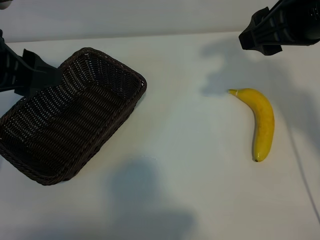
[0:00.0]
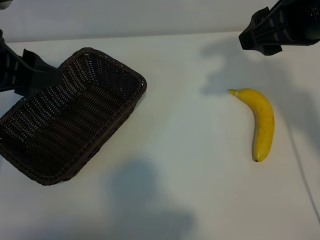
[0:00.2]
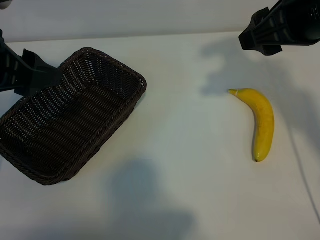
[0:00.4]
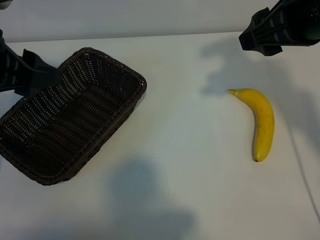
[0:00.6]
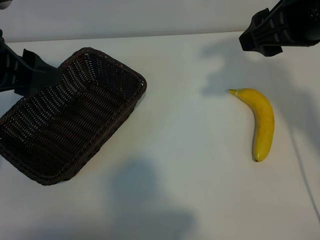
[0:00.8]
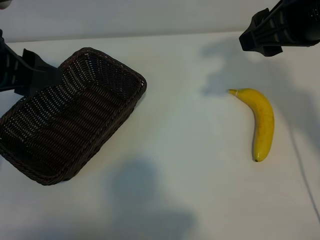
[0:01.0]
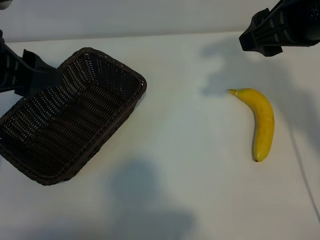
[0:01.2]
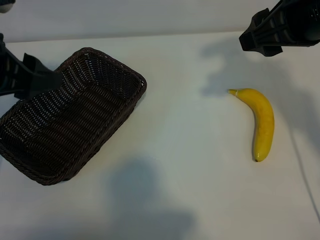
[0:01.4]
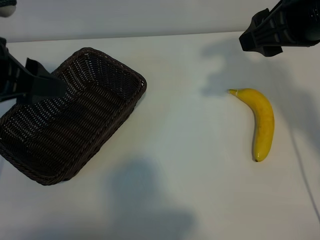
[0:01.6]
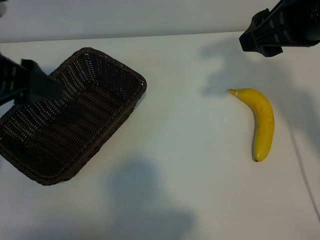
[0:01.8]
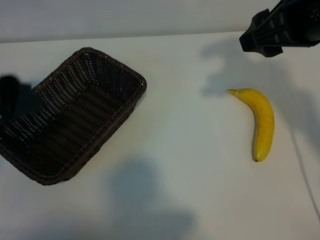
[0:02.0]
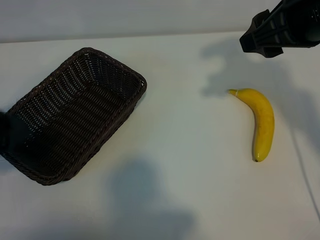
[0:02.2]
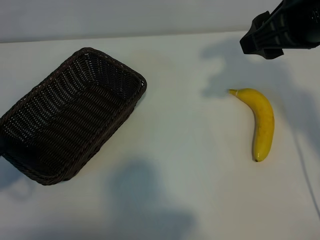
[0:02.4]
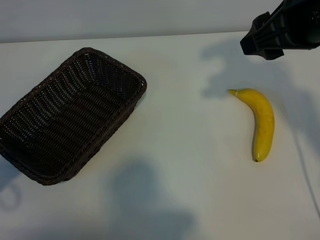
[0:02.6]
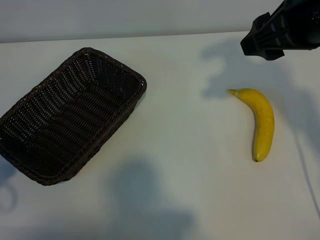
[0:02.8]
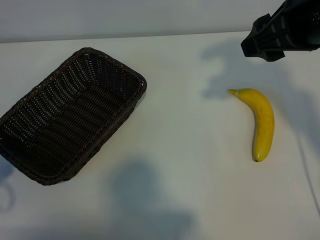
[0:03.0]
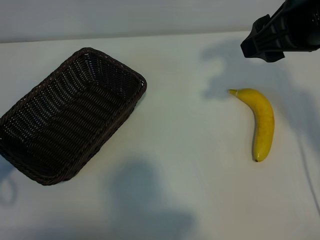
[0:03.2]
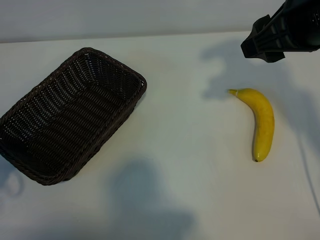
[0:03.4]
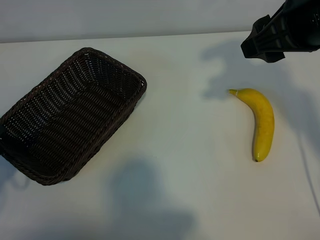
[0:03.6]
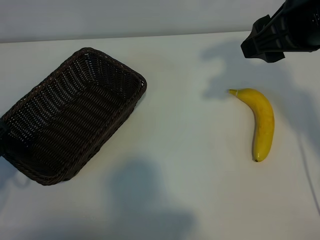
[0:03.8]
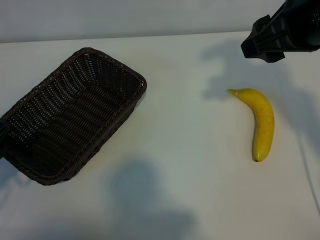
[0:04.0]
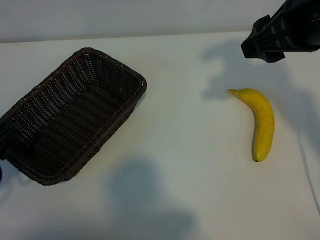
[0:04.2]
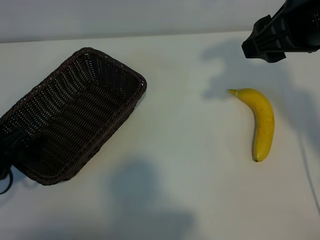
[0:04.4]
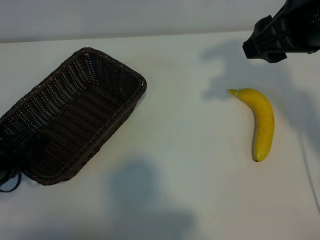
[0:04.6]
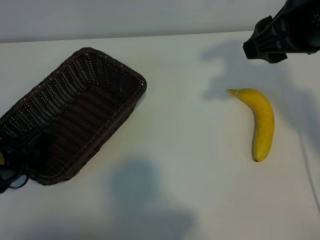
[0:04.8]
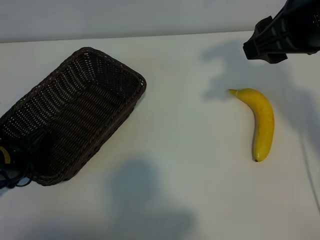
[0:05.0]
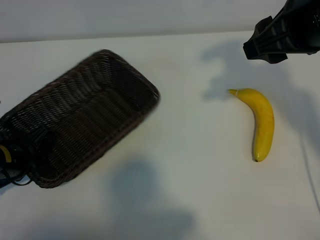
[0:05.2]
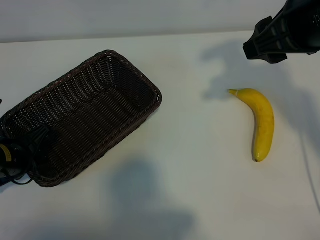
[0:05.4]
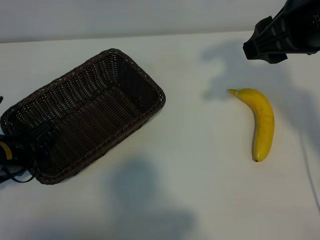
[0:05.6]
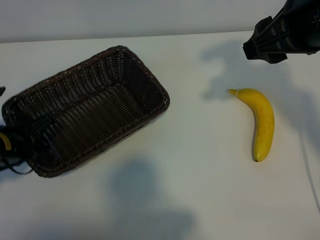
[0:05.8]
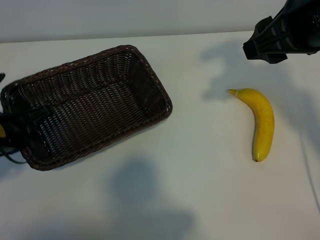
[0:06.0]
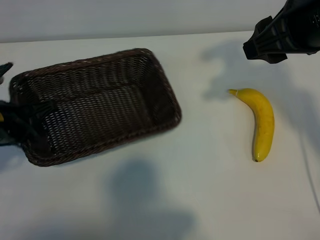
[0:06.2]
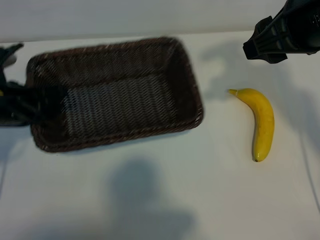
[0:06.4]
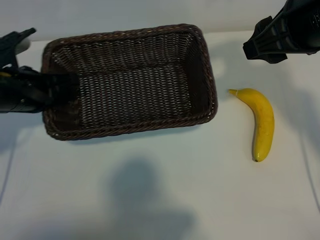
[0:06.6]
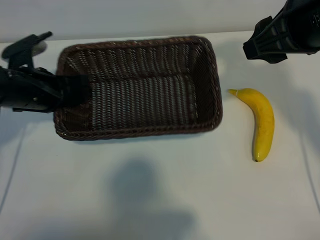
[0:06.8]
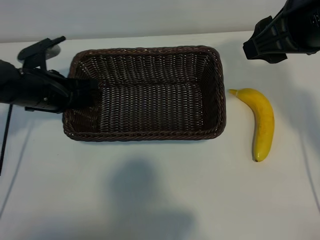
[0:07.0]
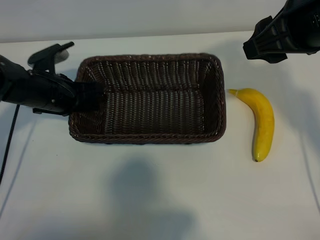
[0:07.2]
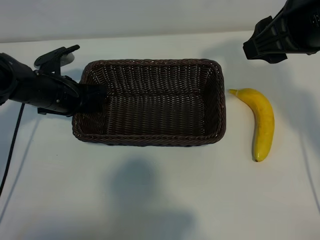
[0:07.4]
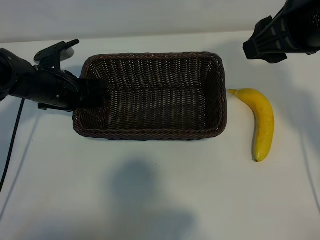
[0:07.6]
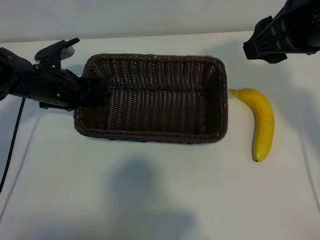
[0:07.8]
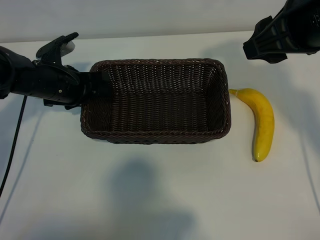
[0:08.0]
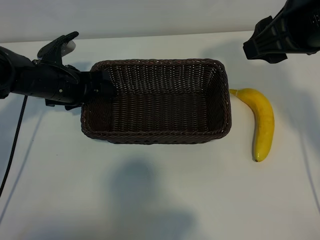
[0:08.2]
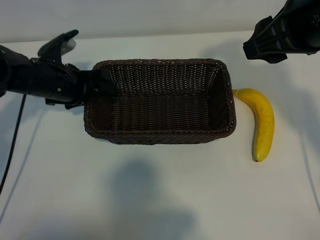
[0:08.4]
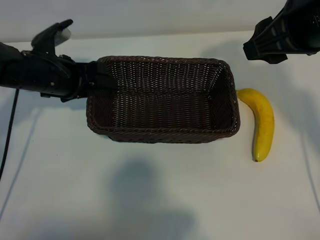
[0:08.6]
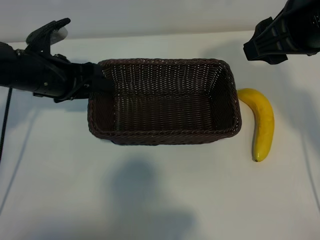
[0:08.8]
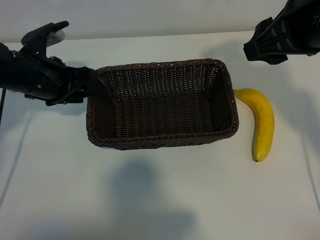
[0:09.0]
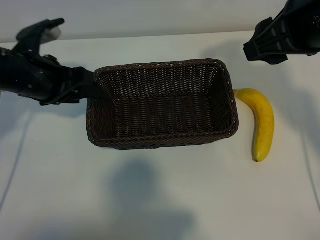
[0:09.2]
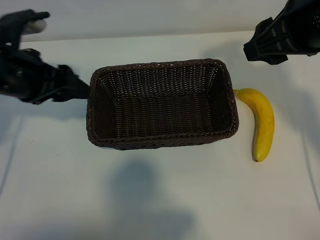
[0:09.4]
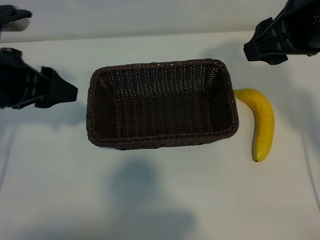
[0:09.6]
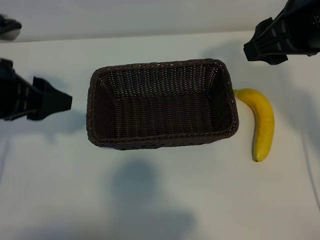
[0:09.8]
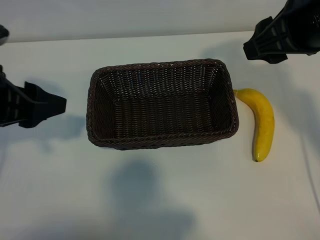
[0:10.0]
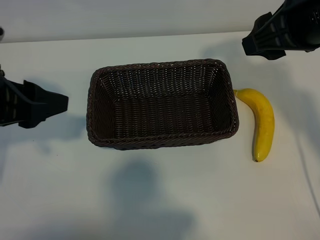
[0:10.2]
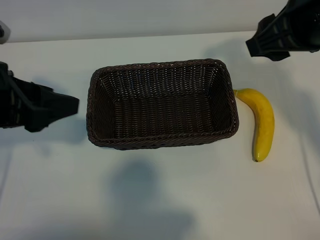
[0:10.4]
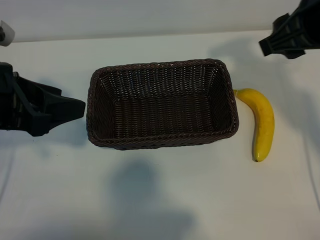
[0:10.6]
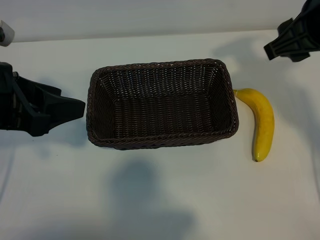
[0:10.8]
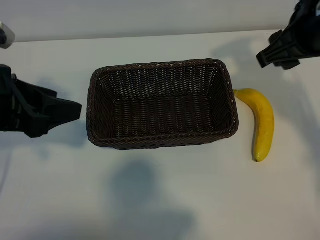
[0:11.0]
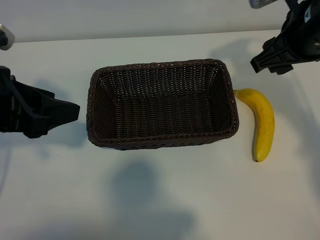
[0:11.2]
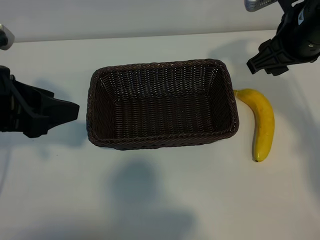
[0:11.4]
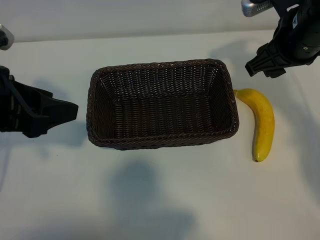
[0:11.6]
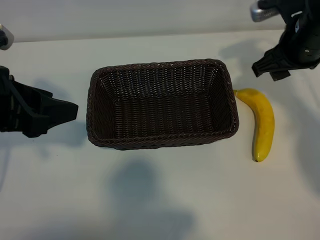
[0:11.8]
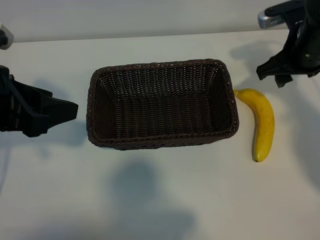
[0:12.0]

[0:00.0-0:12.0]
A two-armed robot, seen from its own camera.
Task of the whole recording: pick up the banana and put it into the basket.
Step, 0:00.6 to 0:05.0: Grasp the basket with the left gripper.
Step, 0:05.2 to 0:08.2: Place the basket in the center of the table with the left gripper.

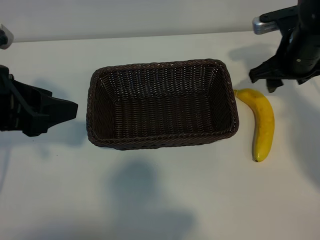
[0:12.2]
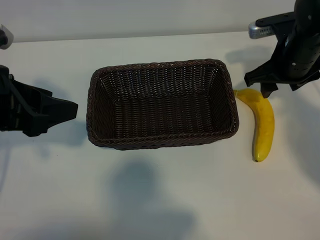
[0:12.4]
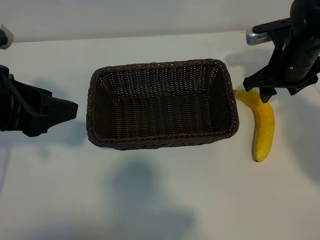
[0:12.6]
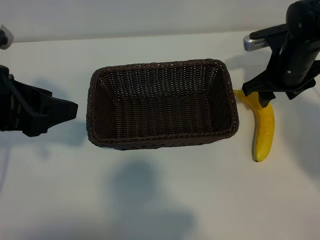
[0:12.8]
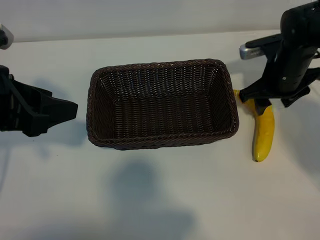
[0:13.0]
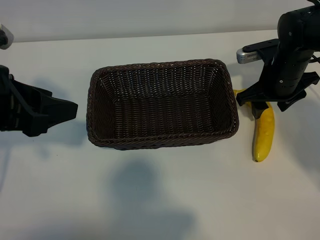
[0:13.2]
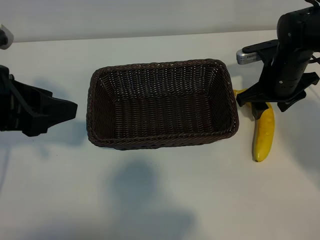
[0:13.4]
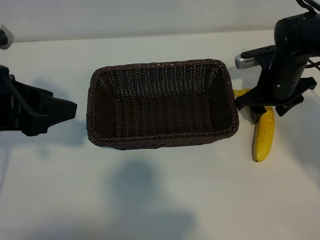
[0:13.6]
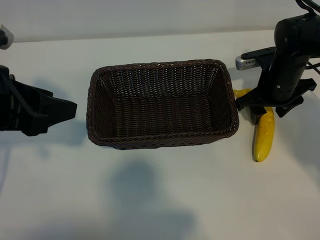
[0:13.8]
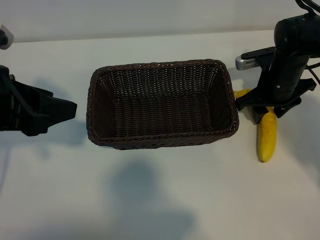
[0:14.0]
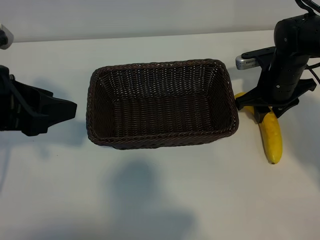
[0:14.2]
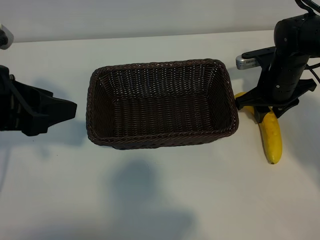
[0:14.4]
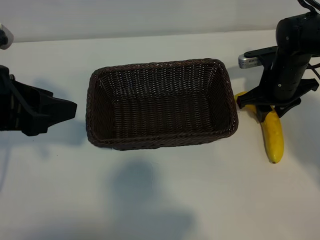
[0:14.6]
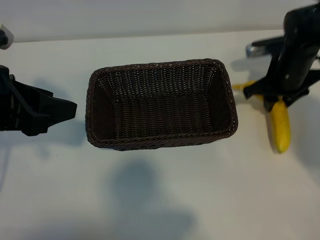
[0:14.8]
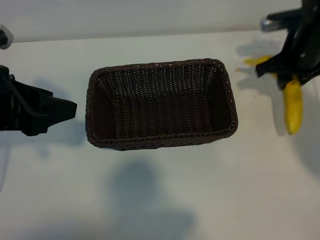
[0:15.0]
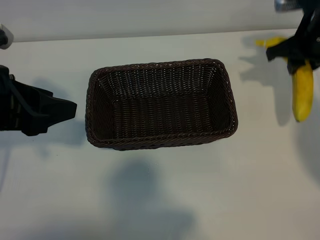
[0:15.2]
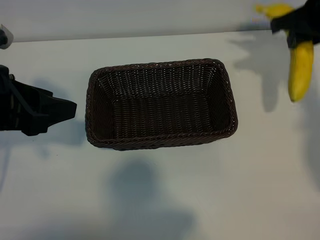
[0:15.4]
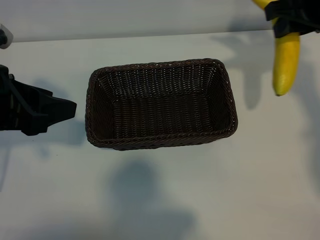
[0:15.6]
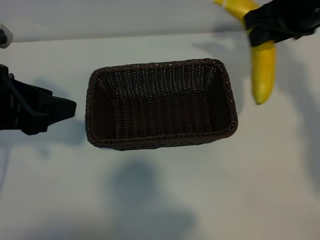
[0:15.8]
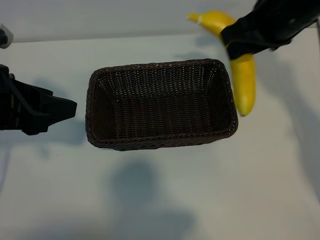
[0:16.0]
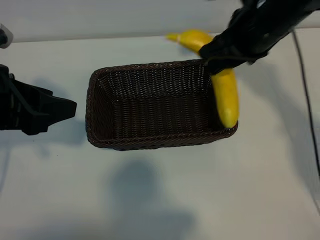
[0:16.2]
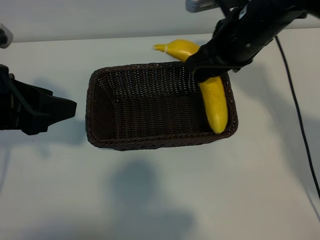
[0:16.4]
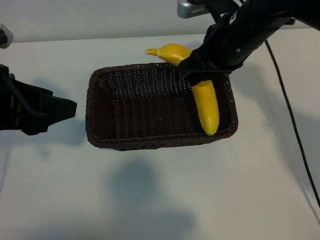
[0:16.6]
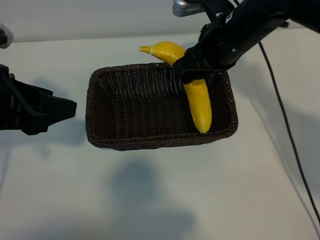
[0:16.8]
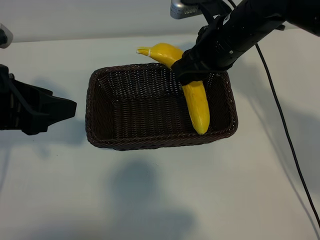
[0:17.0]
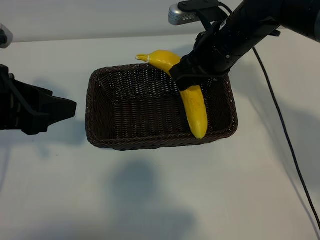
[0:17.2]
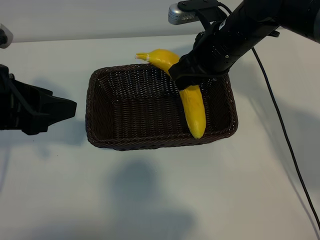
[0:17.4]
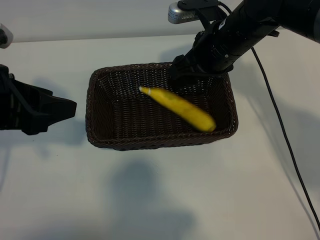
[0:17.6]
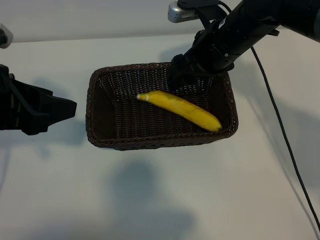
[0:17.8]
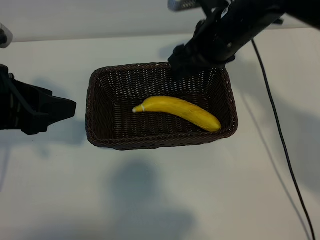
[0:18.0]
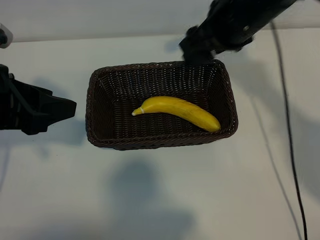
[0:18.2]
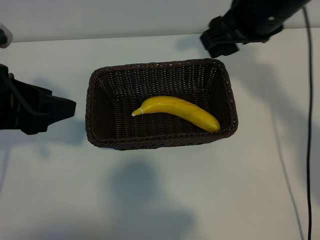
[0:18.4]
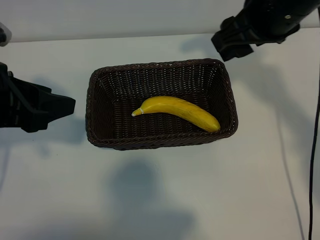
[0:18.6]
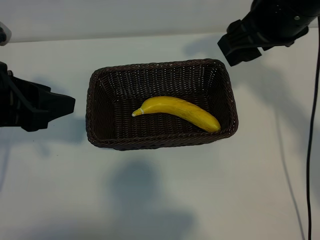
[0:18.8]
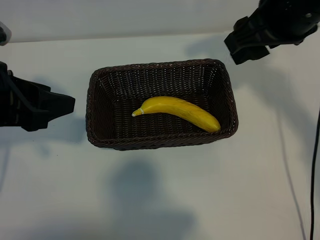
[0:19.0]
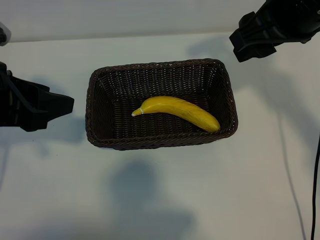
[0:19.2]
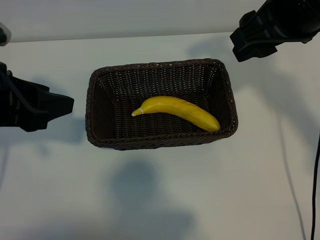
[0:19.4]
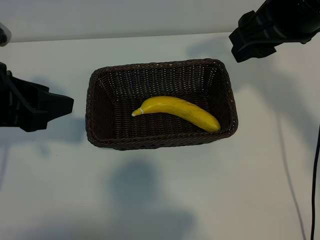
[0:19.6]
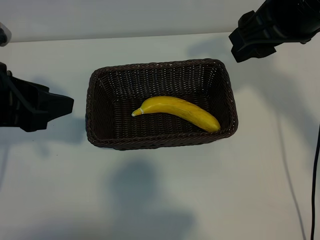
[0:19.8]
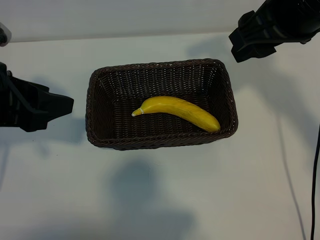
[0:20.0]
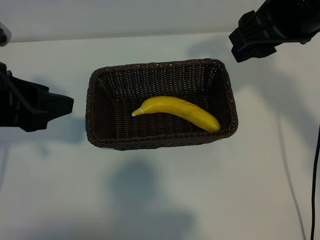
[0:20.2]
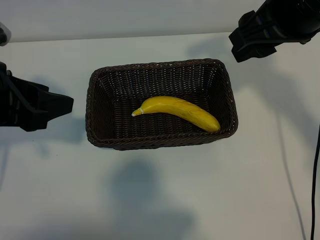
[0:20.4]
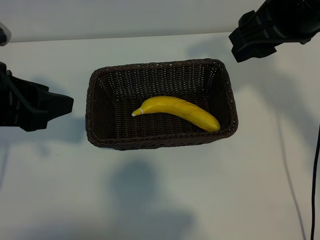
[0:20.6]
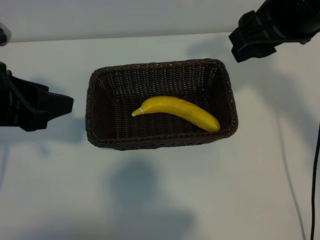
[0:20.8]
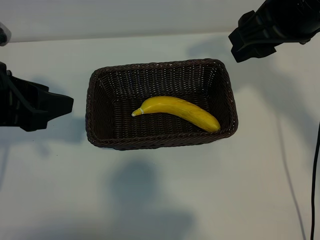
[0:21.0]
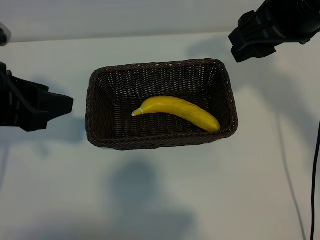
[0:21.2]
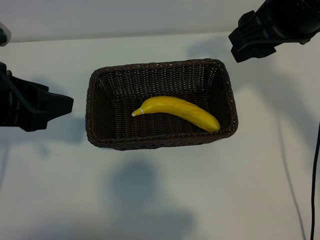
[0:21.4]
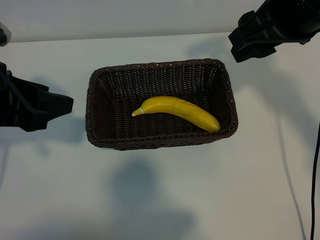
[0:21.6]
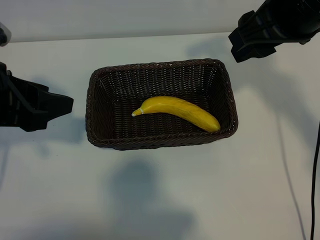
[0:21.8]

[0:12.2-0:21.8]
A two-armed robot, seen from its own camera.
Task of the whole recording: pick up the banana and put it into the basket.
Step, 0:12.2 to 0:14.4: Grasp the banana with right gripper.
Step, 0:14.8 to 0:18.0: Place the banana in the basket with right gripper.
